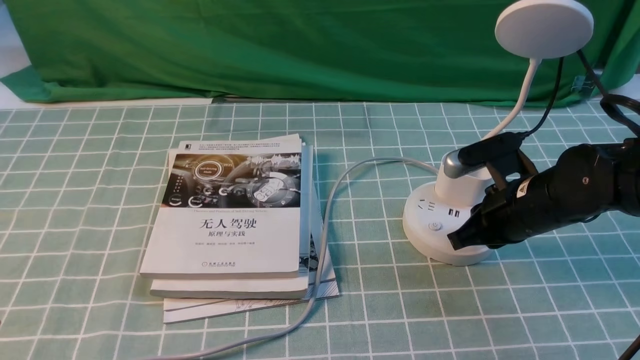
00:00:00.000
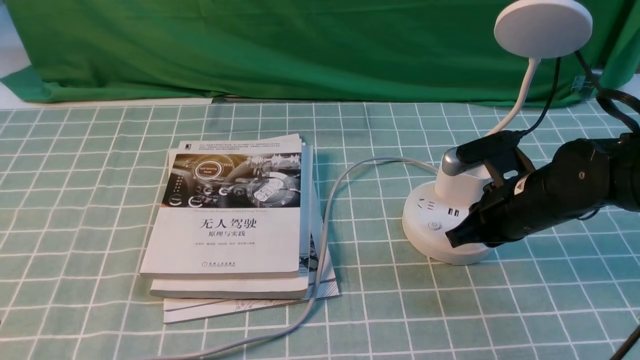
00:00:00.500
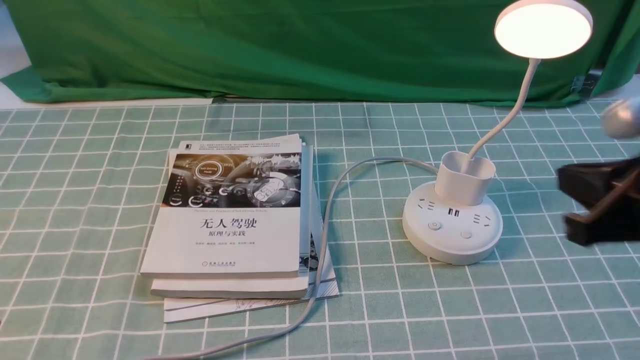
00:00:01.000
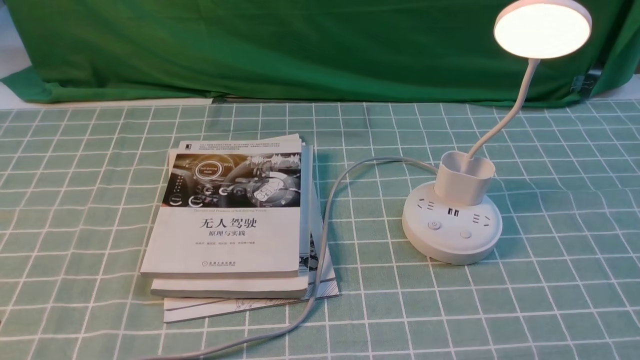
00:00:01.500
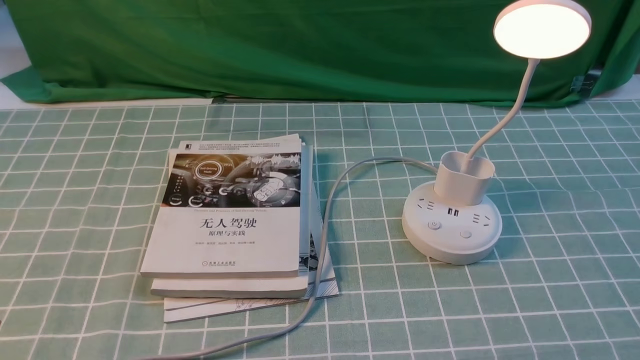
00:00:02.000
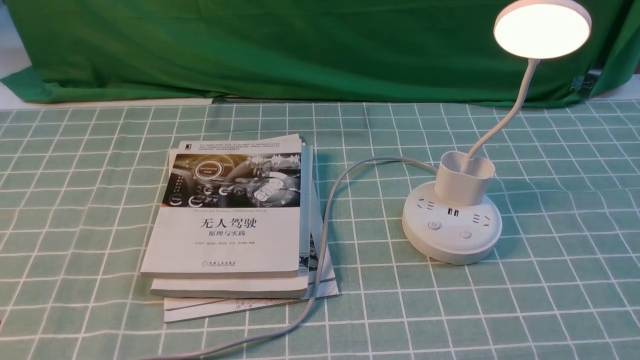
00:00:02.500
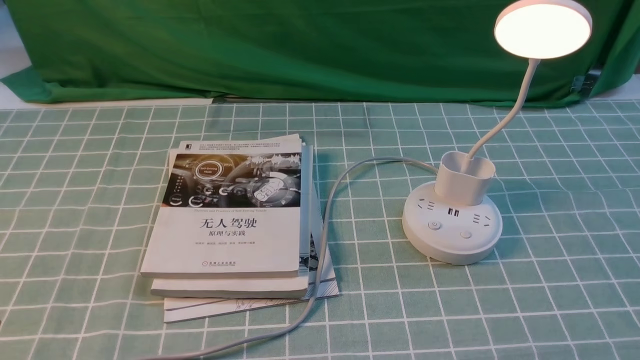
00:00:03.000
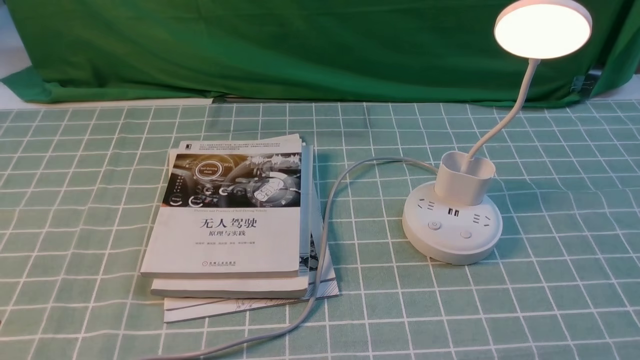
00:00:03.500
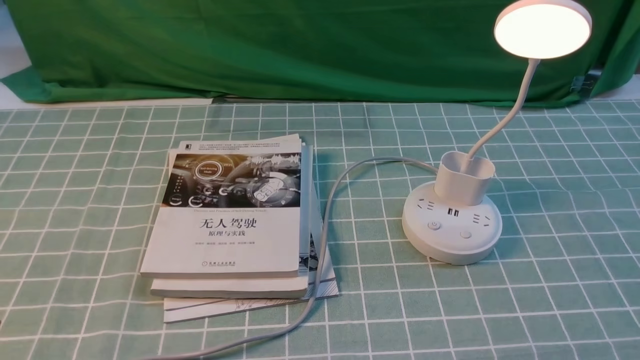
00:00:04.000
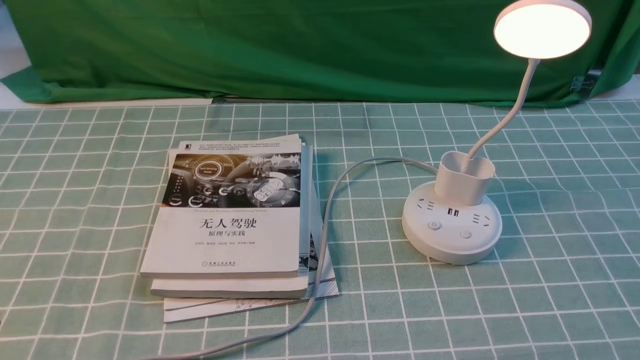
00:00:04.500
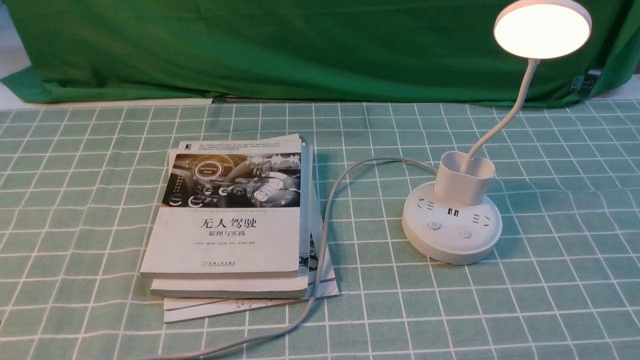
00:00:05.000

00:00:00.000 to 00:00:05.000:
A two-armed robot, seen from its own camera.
00:00:00.000 to 00:00:02.500: The right gripper goes some 30 cm backward and to the right, and opens up.
00:00:02.500 to 00:00:05.000: Both grippers stay put.
